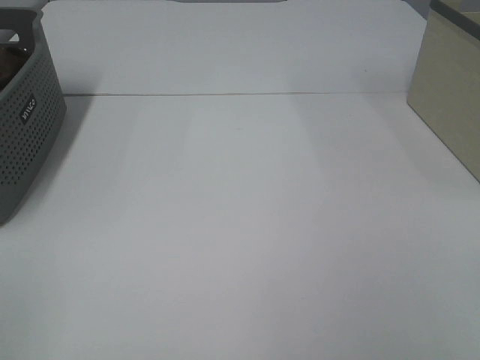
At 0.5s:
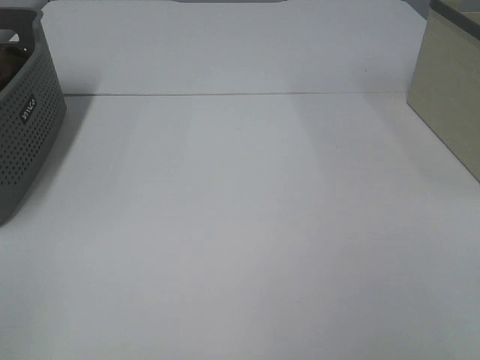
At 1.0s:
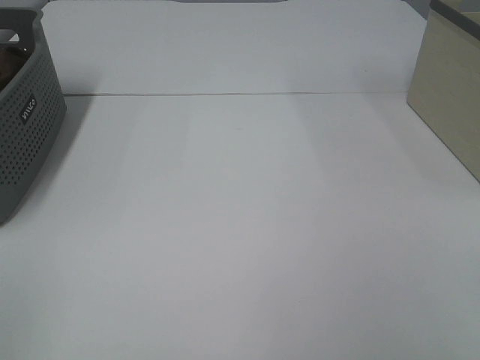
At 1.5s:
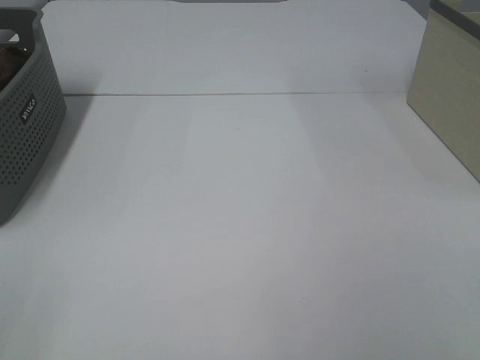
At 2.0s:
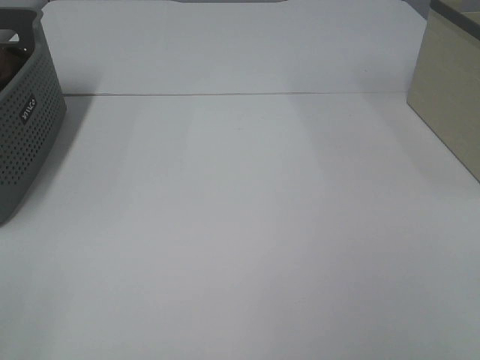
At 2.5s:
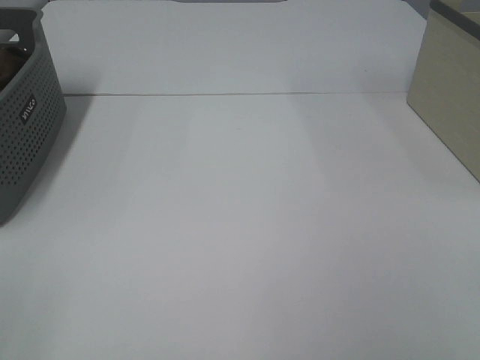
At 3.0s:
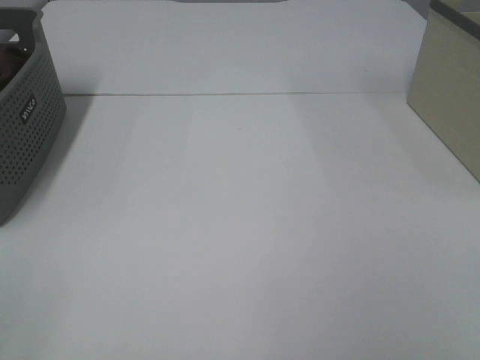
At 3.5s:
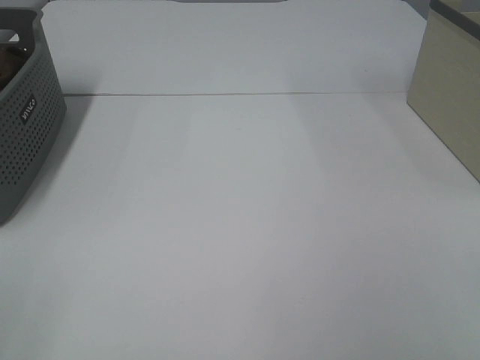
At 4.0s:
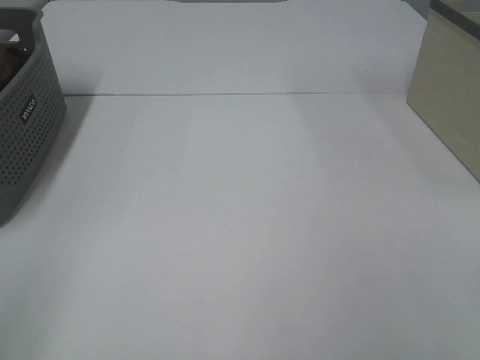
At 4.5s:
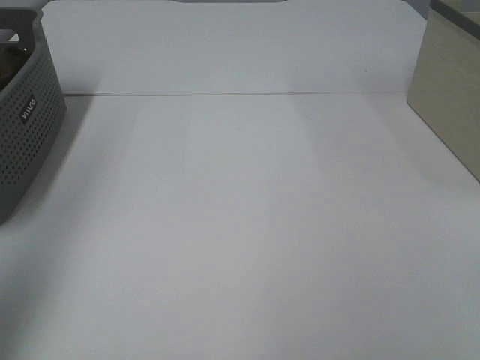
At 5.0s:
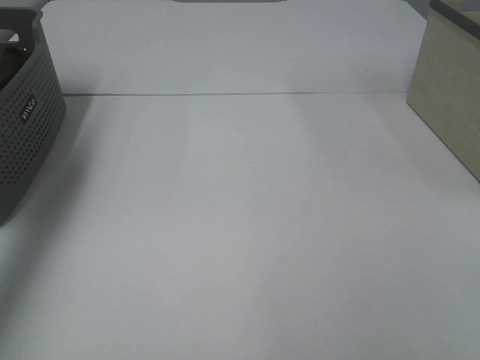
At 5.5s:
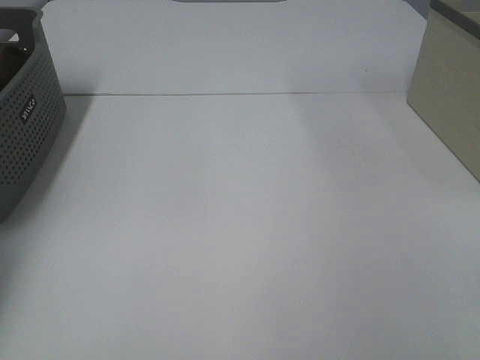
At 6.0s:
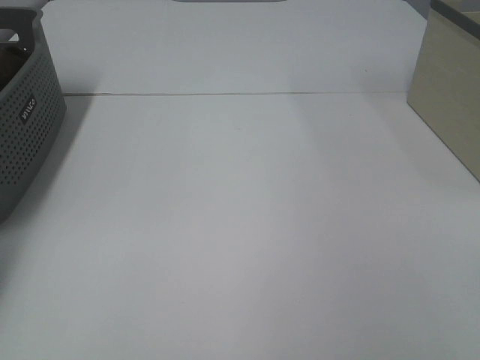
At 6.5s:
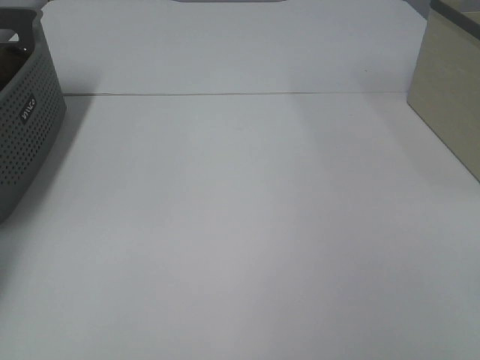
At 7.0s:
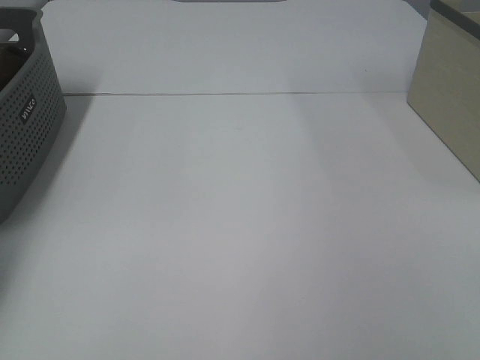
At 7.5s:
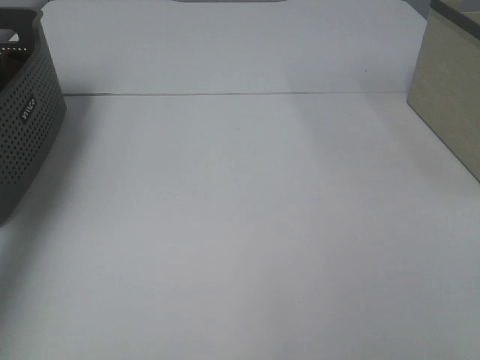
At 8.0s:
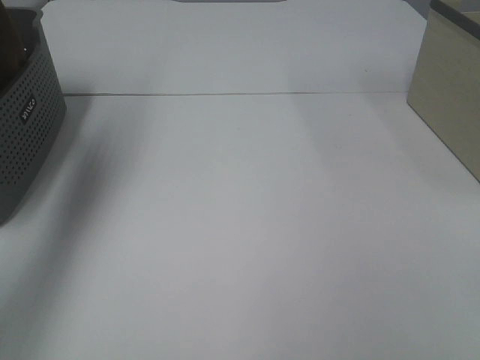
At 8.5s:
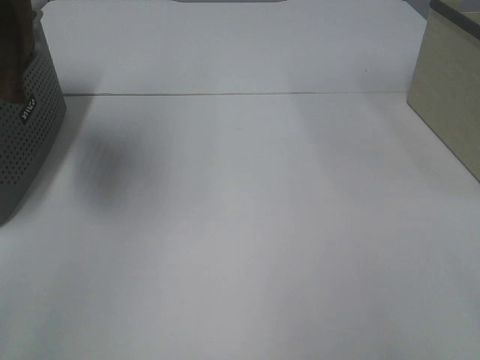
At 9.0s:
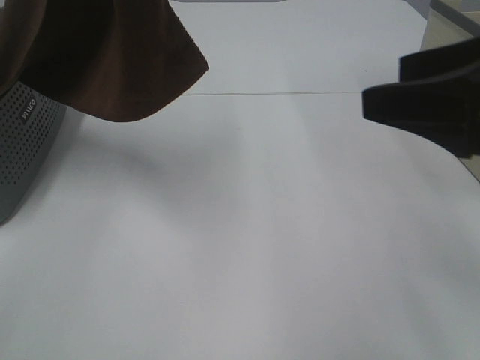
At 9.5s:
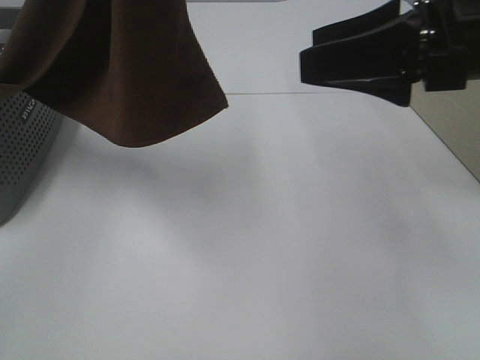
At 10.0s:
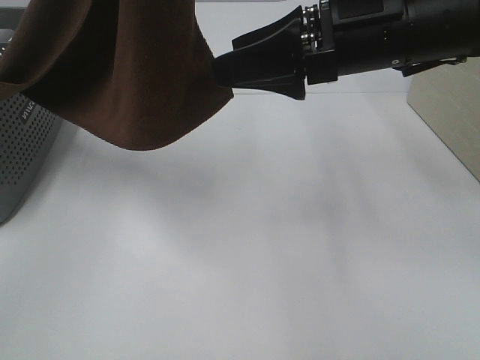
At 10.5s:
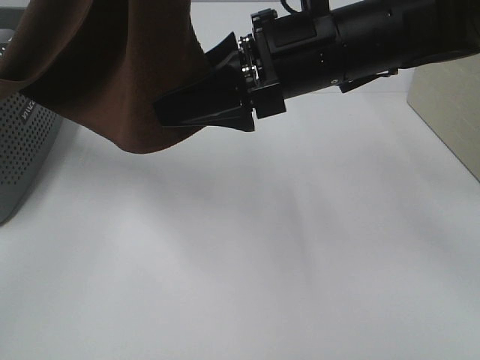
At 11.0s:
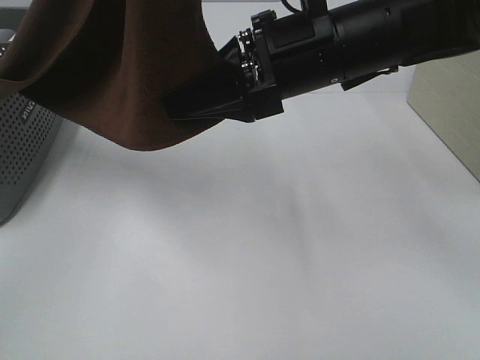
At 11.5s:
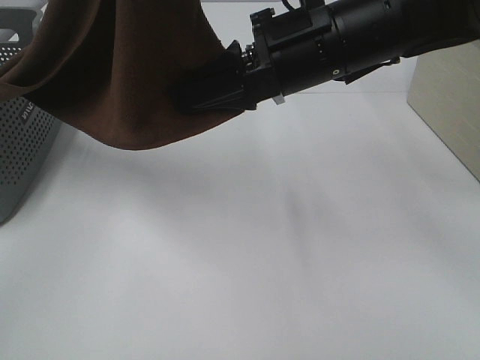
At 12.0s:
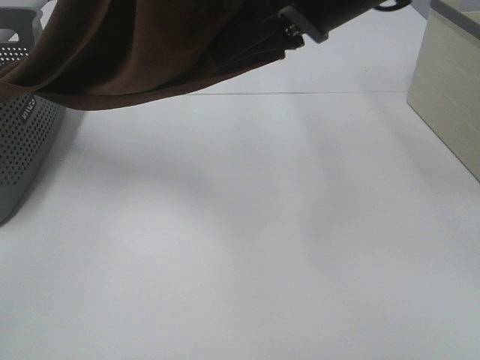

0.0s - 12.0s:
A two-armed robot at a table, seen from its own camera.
Task of the whole recording: Remove the towel and place it.
Step, 8.0s - 11.0s: Right hand: grab a corner of the brown towel and straighten it.
0.0s - 2.0s: Neither gripper changes place.
4.0s - 6.0s: The left gripper moves forward, approximately 40 cm.
6.0s - 8.0s: The left gripper moves upward, to the right and backward, roughly 30 cm, and closes up.
8.0s - 10.0s: The left gripper moves to the right and backward, about 25 cm. Meanwhile the right gripper heads forward and to the left, covering about 35 cm.
10.0s - 12.0s: The right gripper heads upward, covering roughly 5 cm, and closes its fingers.

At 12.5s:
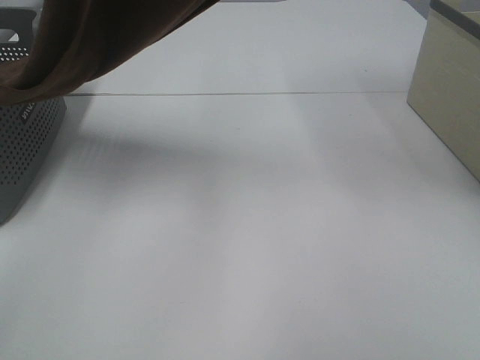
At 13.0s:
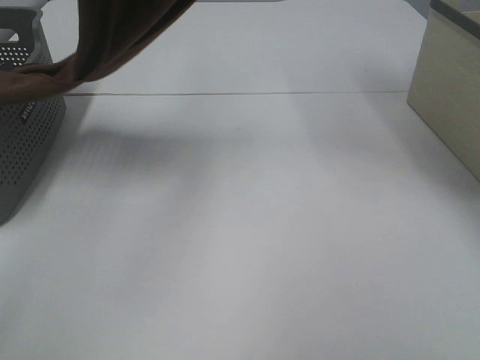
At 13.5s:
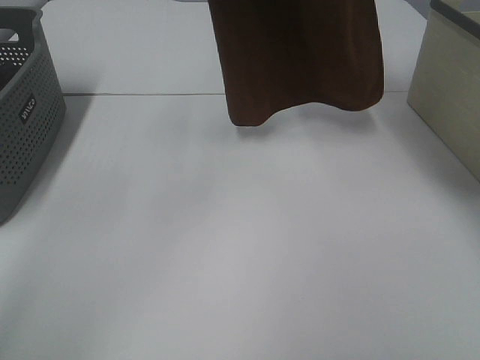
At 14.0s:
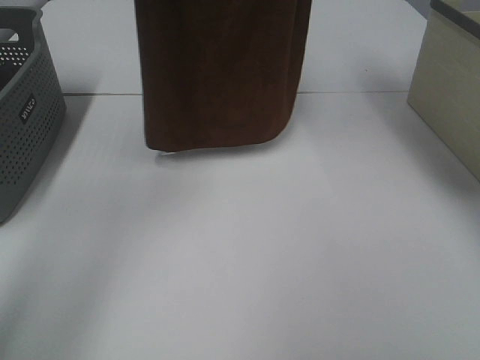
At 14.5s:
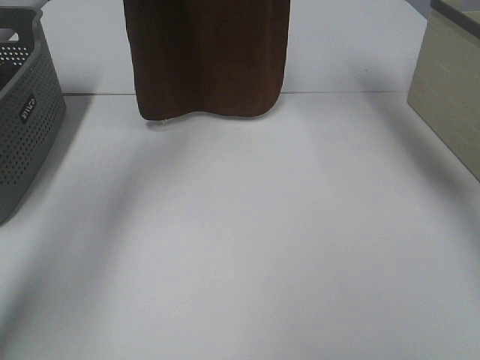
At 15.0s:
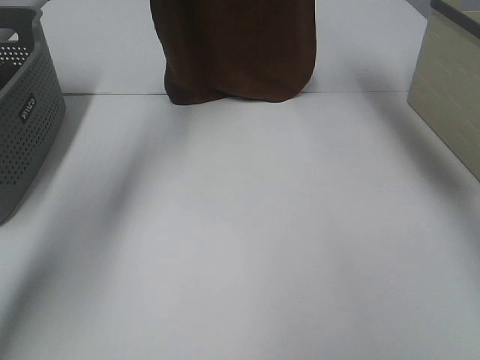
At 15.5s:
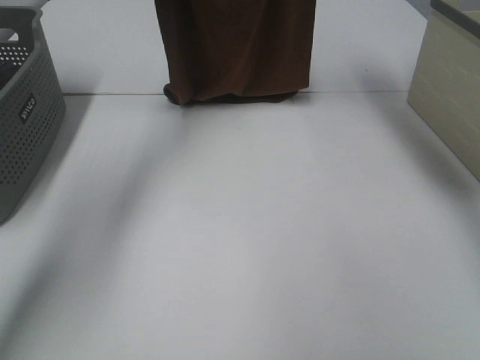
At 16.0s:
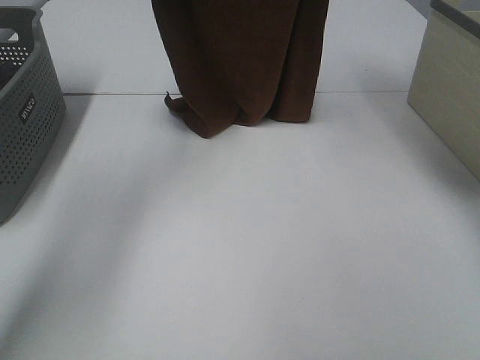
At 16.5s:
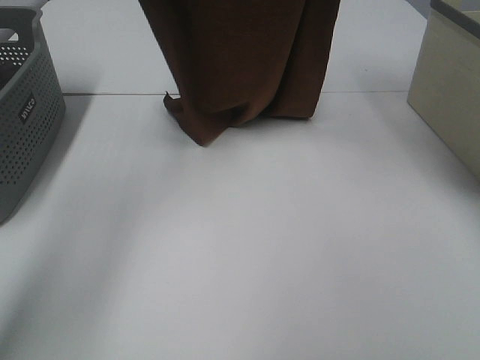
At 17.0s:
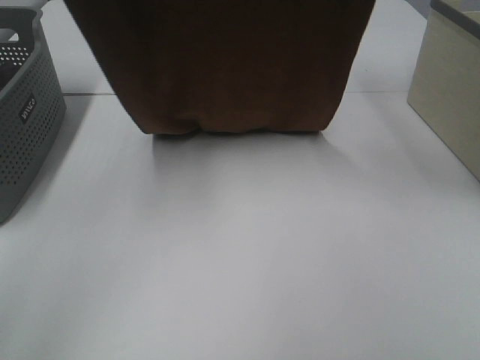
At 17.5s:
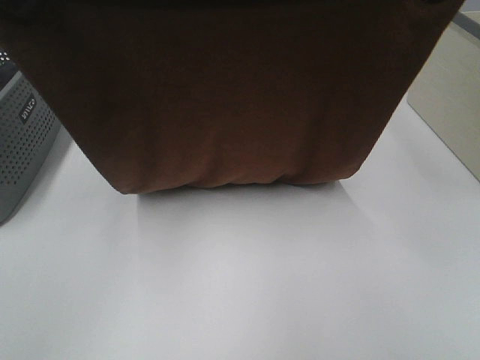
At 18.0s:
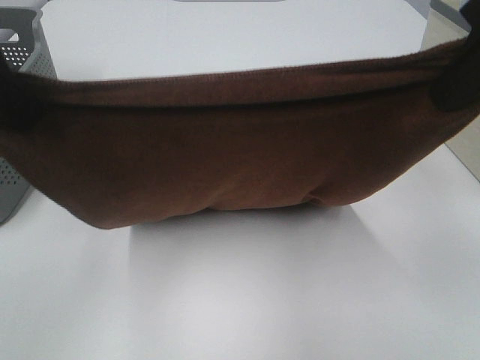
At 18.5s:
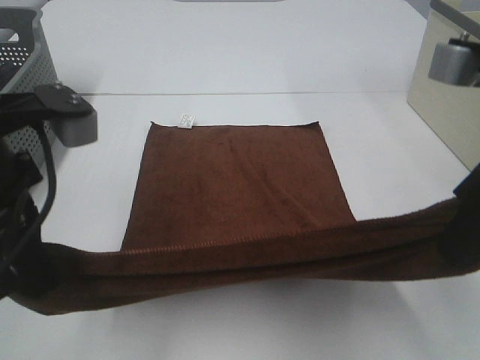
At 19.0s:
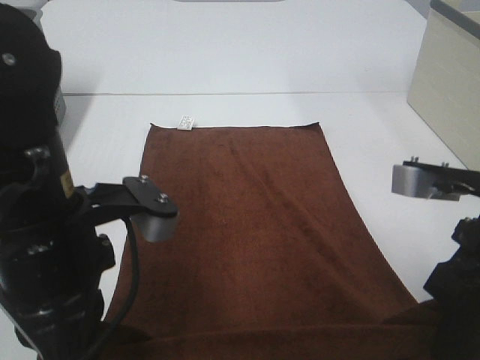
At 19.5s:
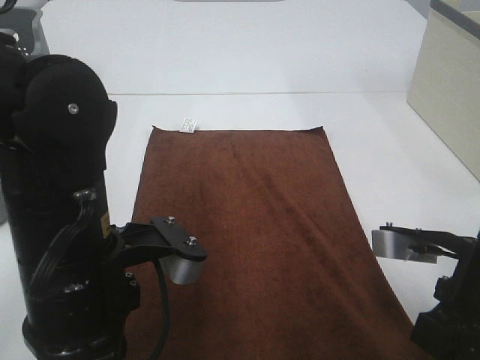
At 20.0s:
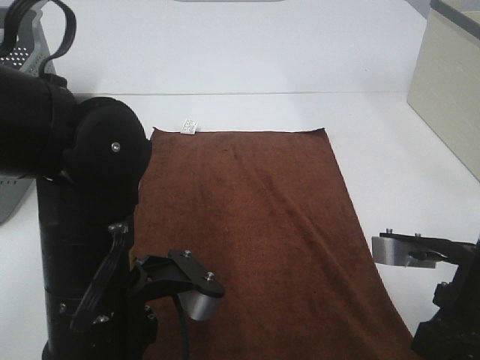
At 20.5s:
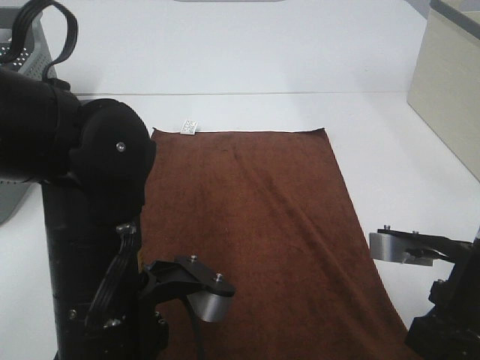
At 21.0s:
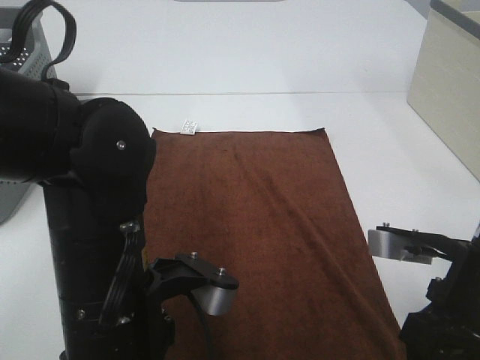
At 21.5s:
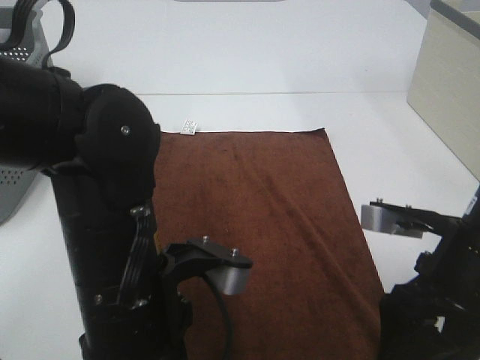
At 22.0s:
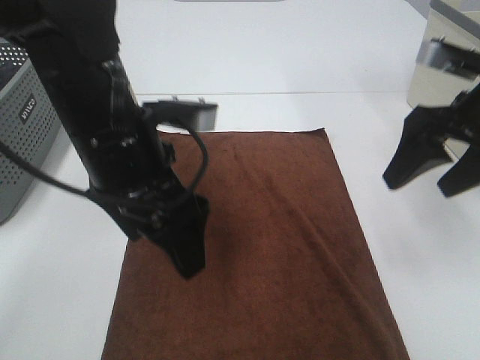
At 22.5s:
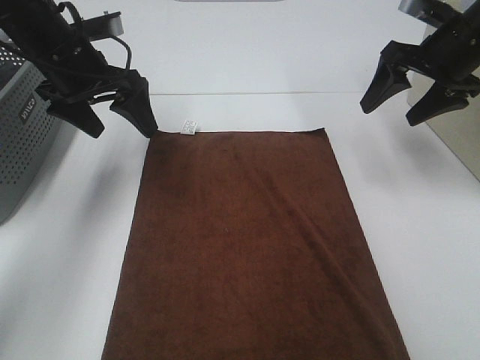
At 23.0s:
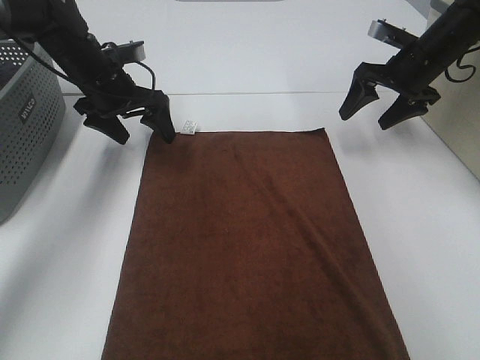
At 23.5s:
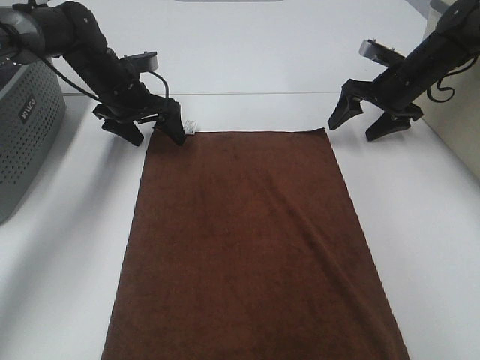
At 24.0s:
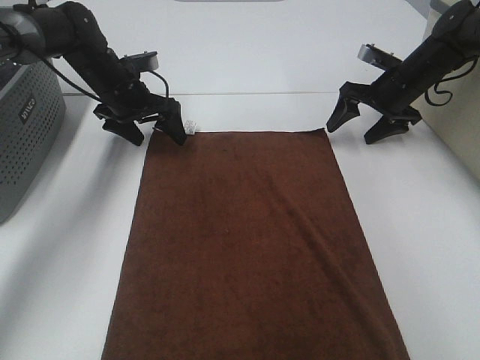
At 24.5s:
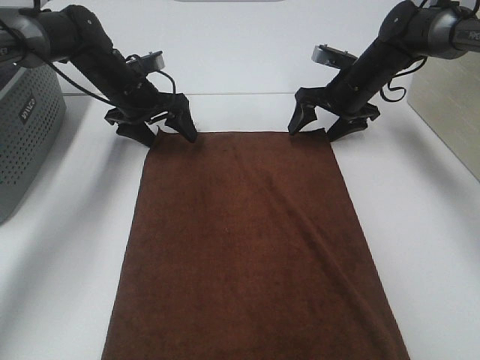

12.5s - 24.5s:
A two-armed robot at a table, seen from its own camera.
Task of the whole recording: Remove the towel and place it.
Step, 12.5s - 17.0s: Left hand: spread the brown towel flat on the table.
Step, 12.5s - 17.0s: Right hand: spread the brown towel flat on the table.
Step, 17.5s - 24.0s: Left hand:adjust the brown towel.
Step, 17.5s - 24.0s: Right hand:adjust the brown towel.
12.5s - 14.5s: Both grippers travel together forward, roughly 15 cm.
14.5s - 16.5s: The grippers both shift backward by about 5 cm.
16.5s - 18.5s: The grippers both shift backward and downward by about 30 cm.
18.5s - 20.5s: The left gripper heads downward and to the right, covering approximately 15 cm. Meanwhile the right gripper shifts roughly 15 cm downward.
20.5s - 22.5s: The left gripper shifts some 30 cm forward and to the left, and opens its fingers. Meanwhile the right gripper heads forward, covering approximately 25 cm, and opens up.
22.5s - 24.5s: The left gripper goes about 15 cm downward and forward; the right gripper goes some 15 cm downward, forward and to the left.

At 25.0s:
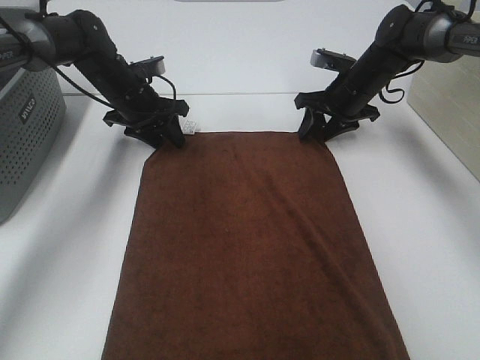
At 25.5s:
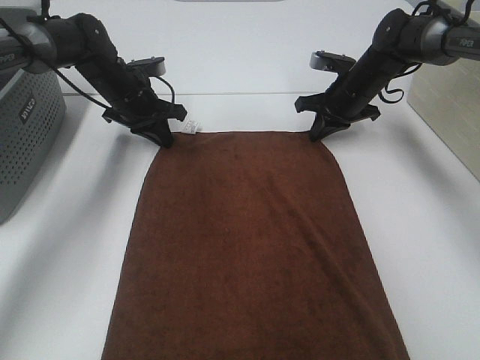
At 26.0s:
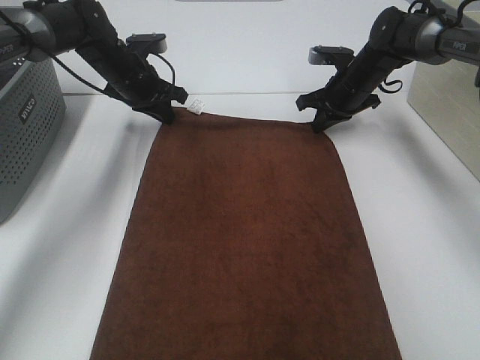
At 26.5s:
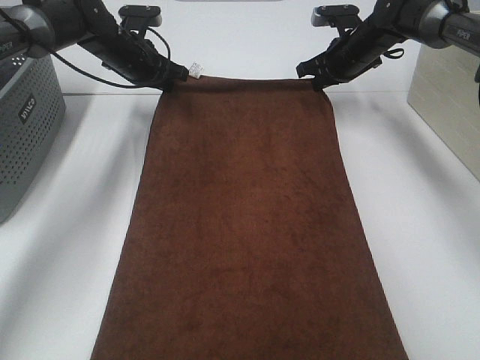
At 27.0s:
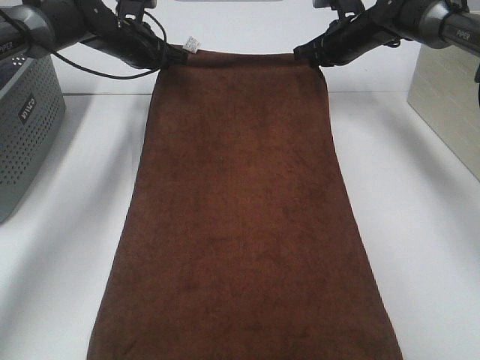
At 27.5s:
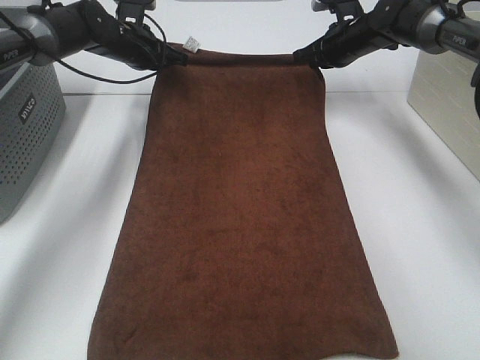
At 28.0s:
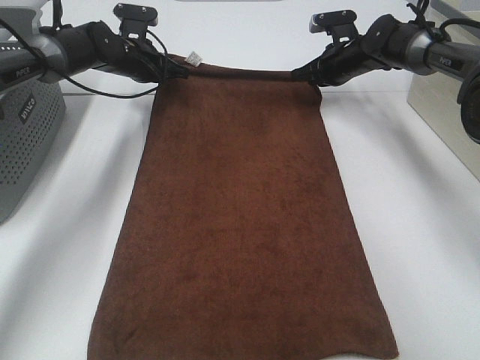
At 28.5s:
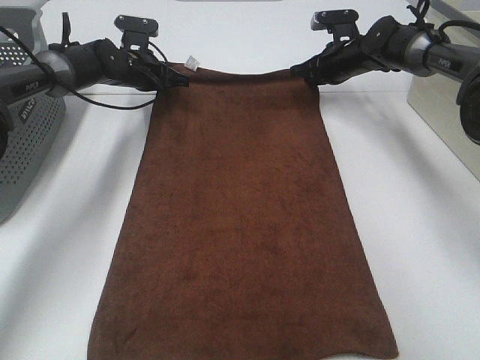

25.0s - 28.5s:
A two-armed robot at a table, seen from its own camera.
Task of the whole recording: Remove the towel and place it.
25.0s - 27.0s: The right gripper goes approximately 10 cm upward and forward, and closes, while the left gripper moves forward and upward, about 10 cm, and closes up.
27.0s - 28.5s: The left gripper heads downward, covering about 5 cm.
